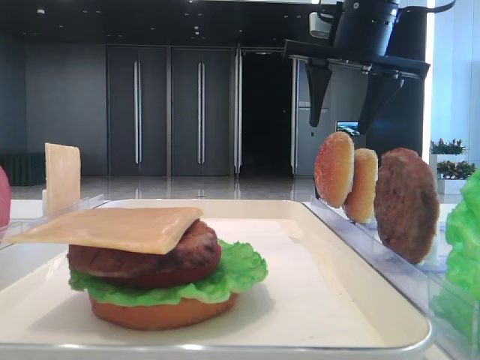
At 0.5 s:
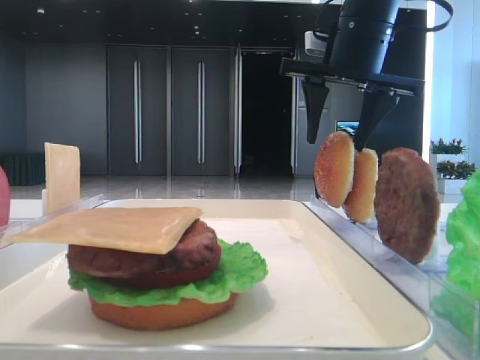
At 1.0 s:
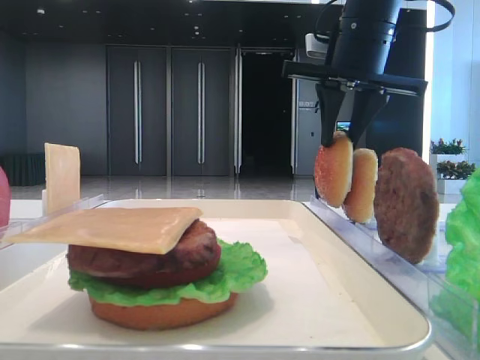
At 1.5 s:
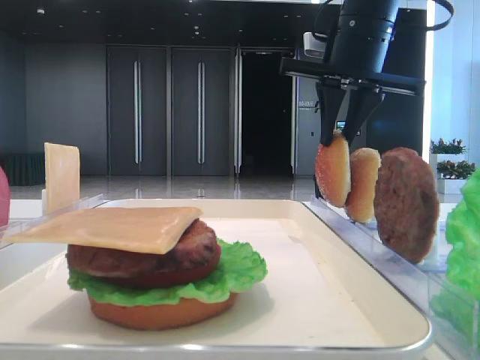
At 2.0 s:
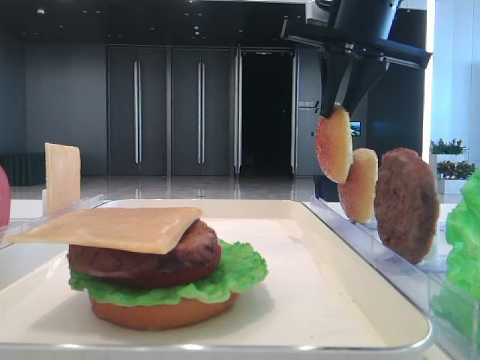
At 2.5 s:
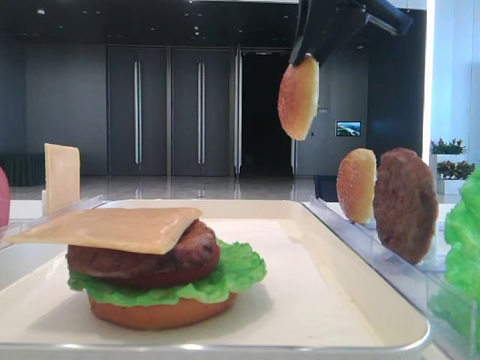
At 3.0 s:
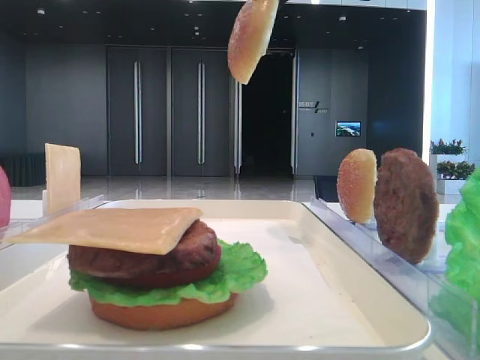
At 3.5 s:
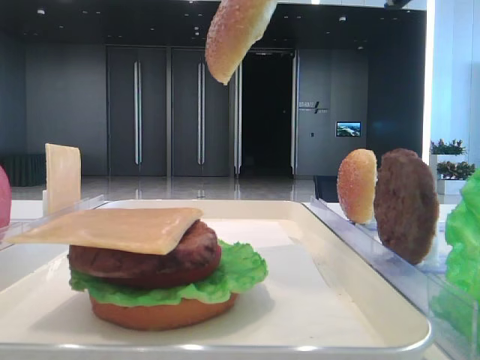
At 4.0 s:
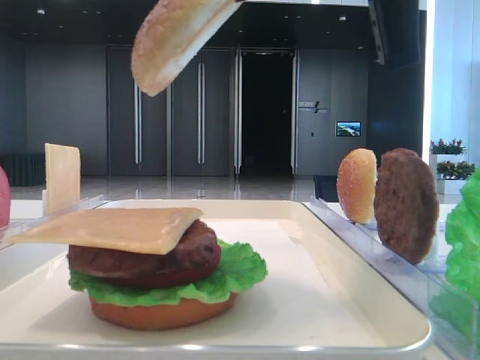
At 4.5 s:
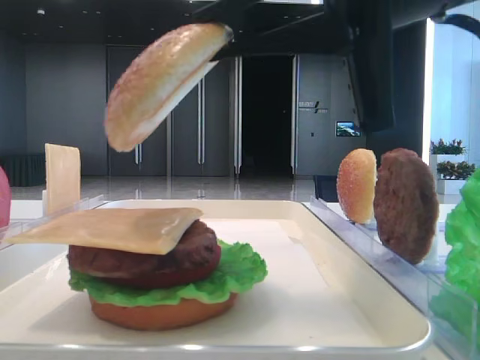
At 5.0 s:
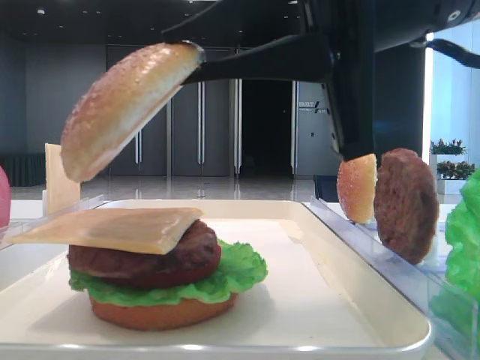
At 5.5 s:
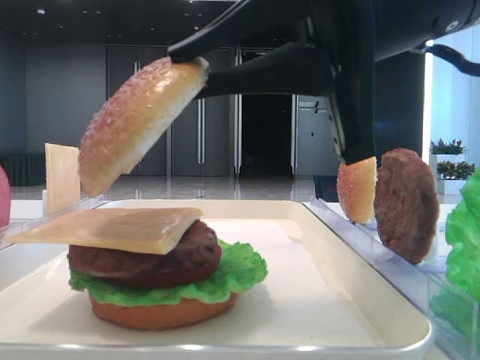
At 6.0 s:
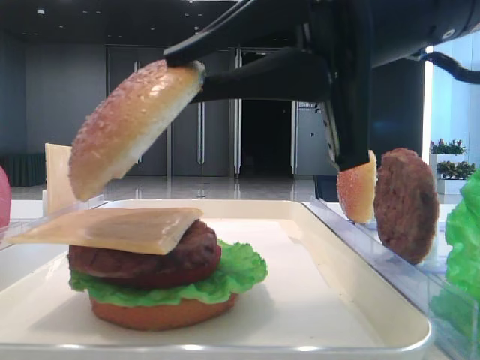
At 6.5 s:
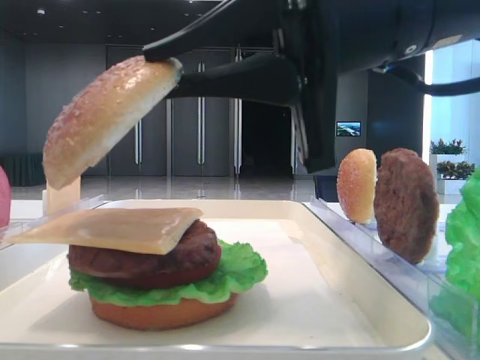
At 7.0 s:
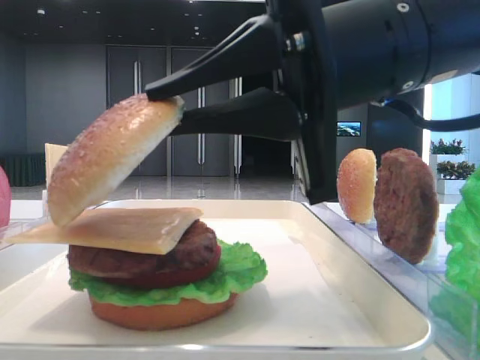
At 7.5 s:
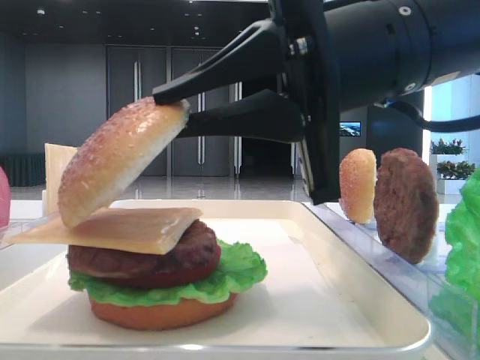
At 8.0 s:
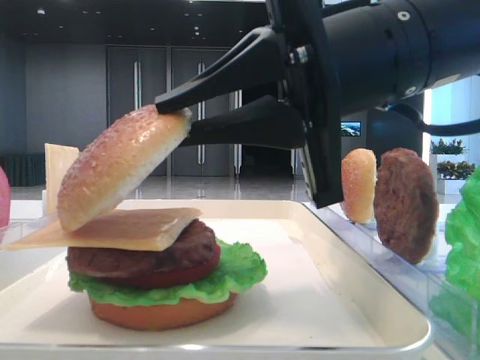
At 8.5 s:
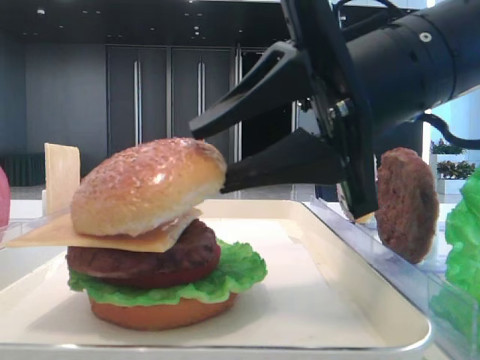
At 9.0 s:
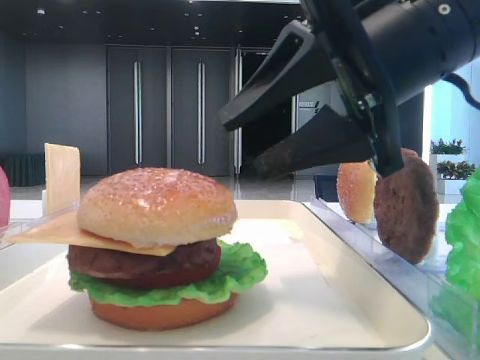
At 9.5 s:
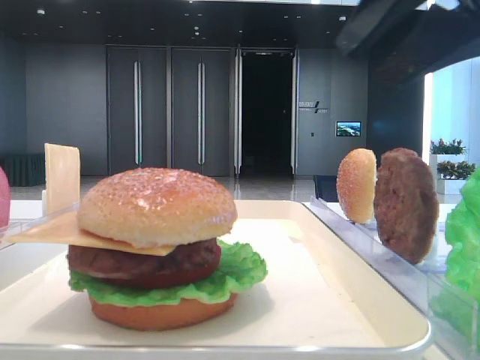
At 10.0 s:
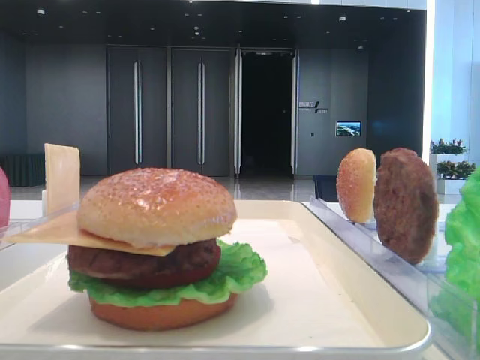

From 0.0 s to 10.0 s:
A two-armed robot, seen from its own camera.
Step, from 1.5 s to 8.5 s: Place the top bread slice on the cheese with the right hand.
From 0.0 s to 2.0 s: The right gripper closes up.
From 2.0 s to 4.0 s: The right gripper is displaced backward by approximately 20 cm.
From 4.0 s to 6.0 s: The right gripper goes approximately 5 cm downward.
From 6.0 s to 8.0 s: The grippers stay close to where they were, moving slightly.
From 8.0 s to 10.0 s: The right gripper heads to the right and upward, covering roughly 20 cm, and opens its fingers.

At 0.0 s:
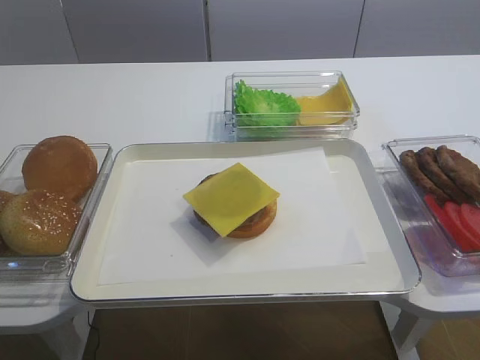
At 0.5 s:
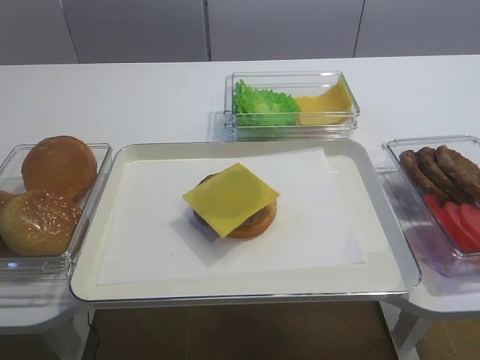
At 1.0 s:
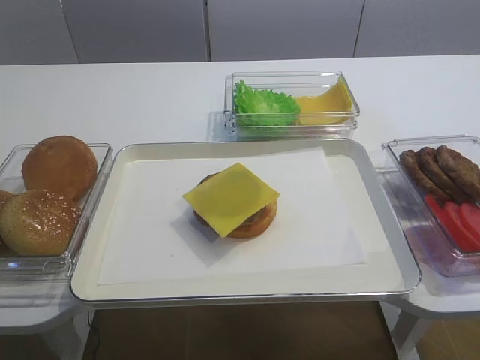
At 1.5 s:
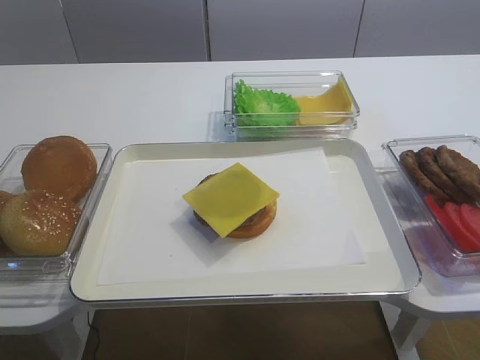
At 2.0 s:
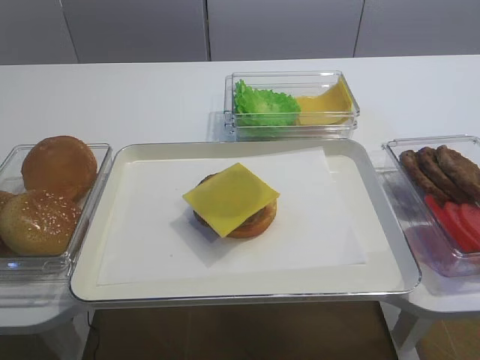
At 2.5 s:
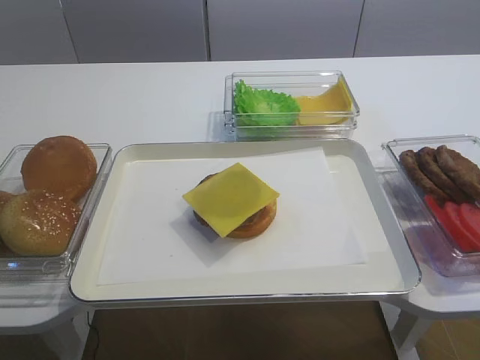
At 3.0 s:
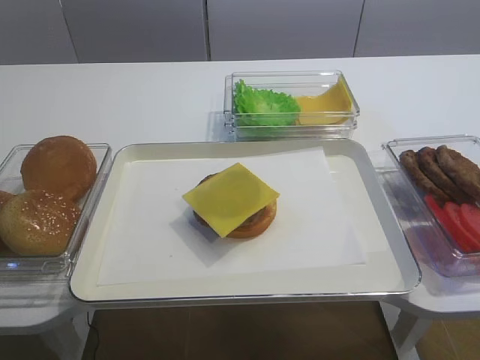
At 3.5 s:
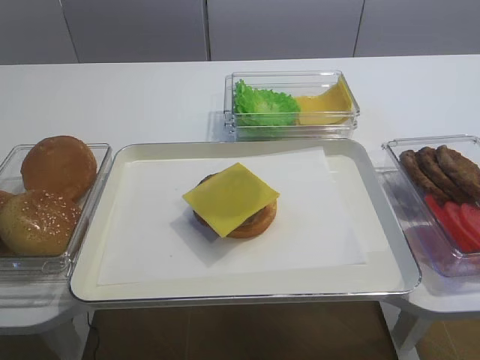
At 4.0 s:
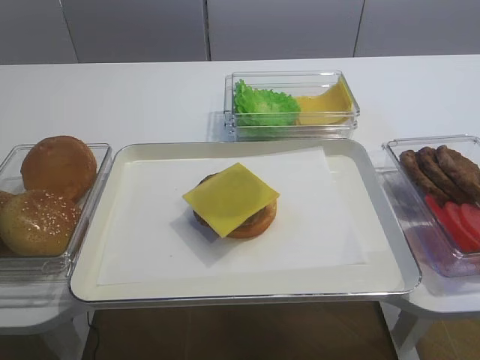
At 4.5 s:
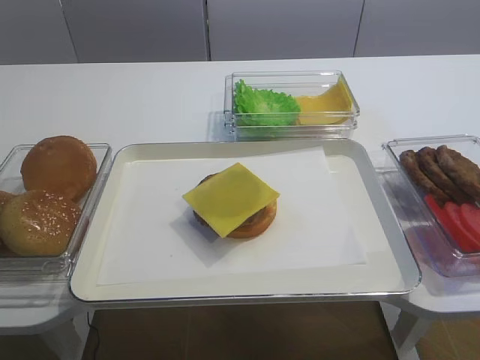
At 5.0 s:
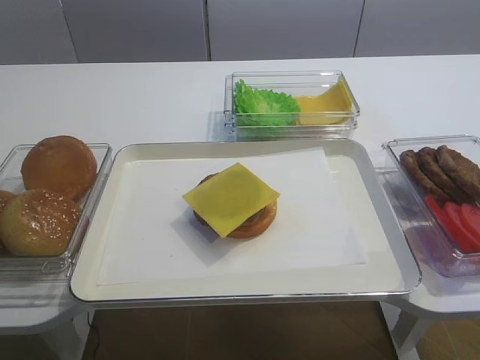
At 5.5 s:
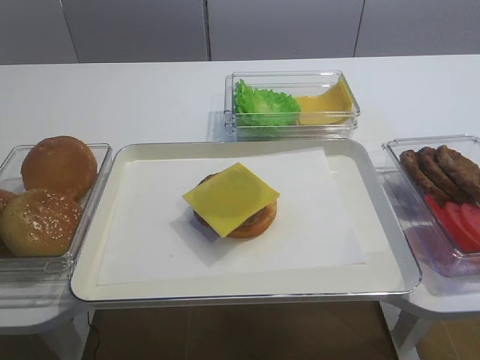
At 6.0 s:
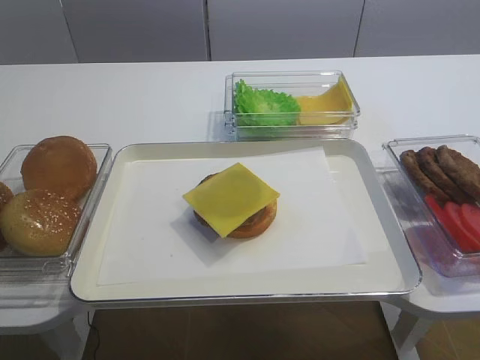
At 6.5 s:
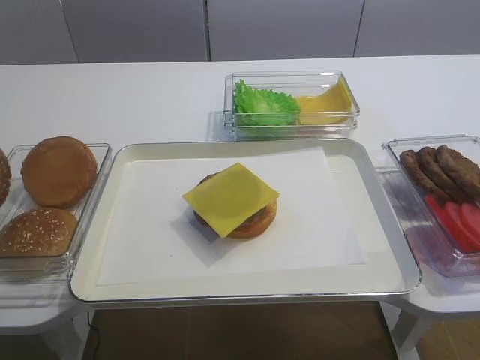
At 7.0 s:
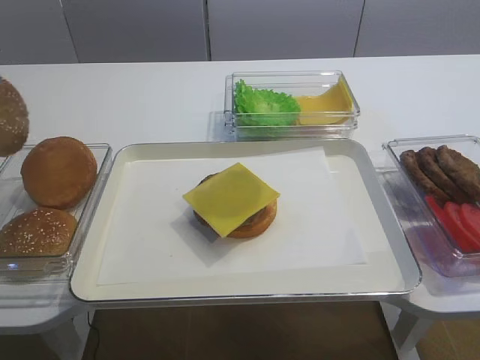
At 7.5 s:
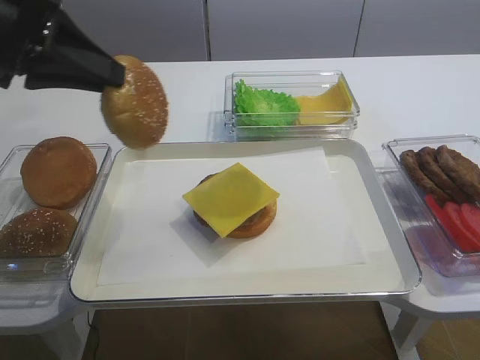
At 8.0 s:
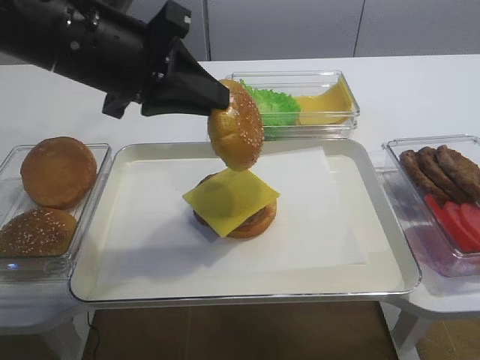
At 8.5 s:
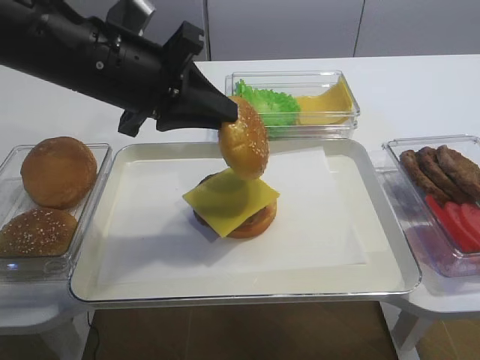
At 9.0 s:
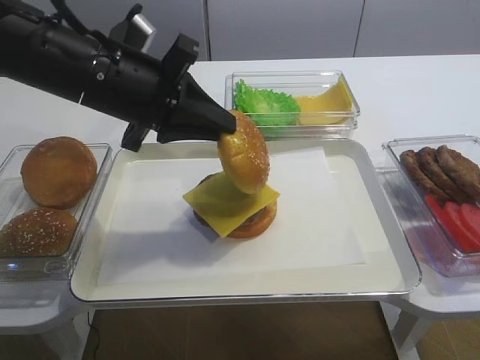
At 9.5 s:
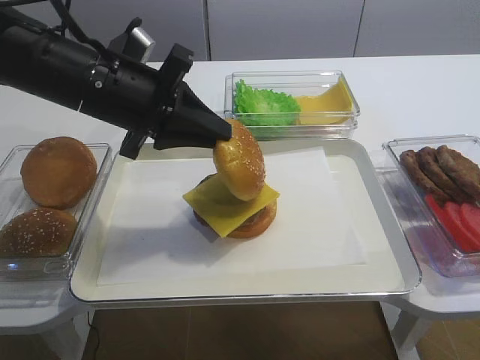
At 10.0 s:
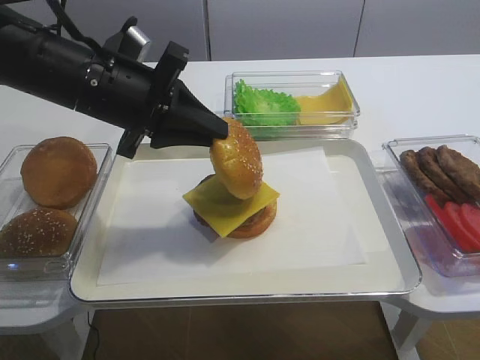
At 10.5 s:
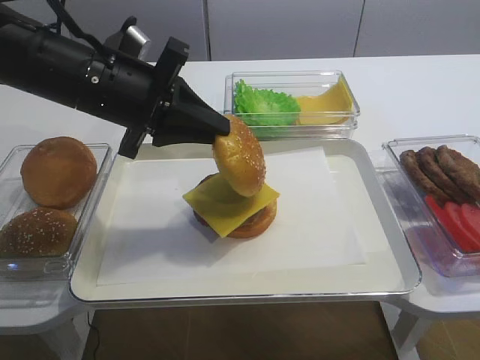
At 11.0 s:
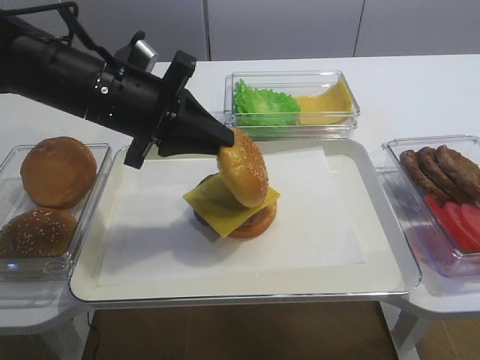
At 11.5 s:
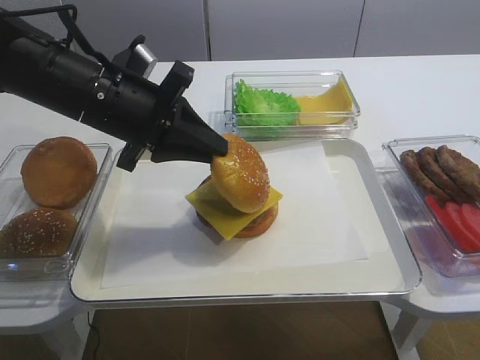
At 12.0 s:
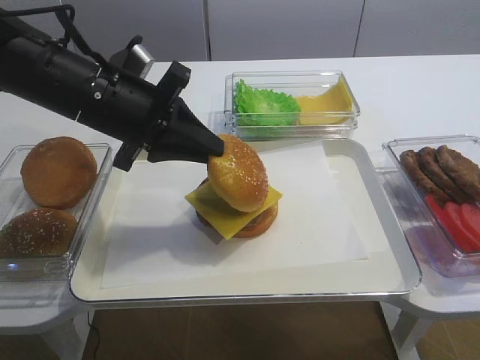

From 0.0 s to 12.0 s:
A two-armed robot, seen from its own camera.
Step, from 0.0 s to 6.5 s: Pick up the hamburger lid with the left gripper.
From 6.0 s to 8.0 s: The left gripper shifts some 20 cm to the right.
From 8.0 s to 10.0 s: The left gripper changes place by some 5 cm.
From 10.0 s to 12.0 s: The grippers make only small movements.

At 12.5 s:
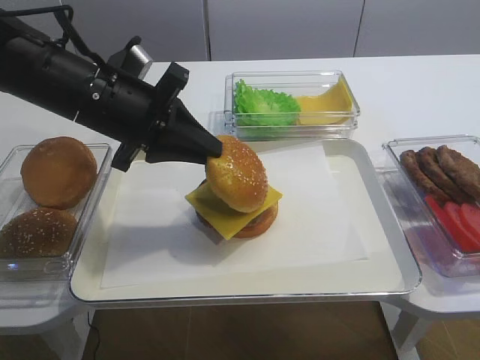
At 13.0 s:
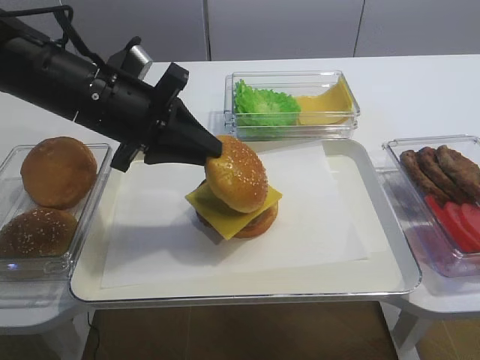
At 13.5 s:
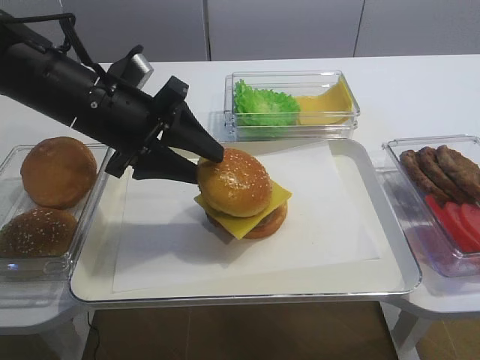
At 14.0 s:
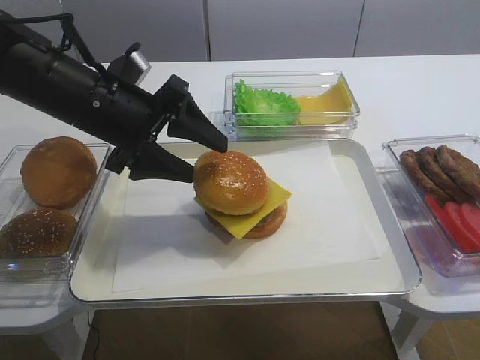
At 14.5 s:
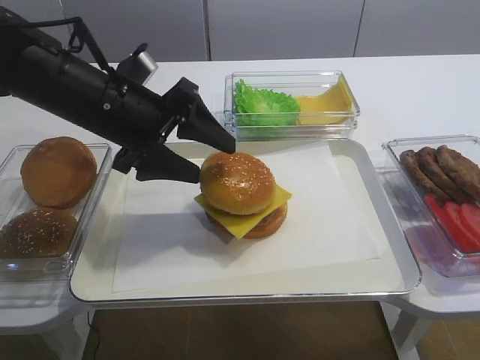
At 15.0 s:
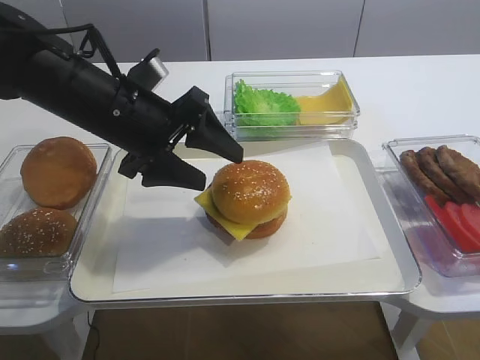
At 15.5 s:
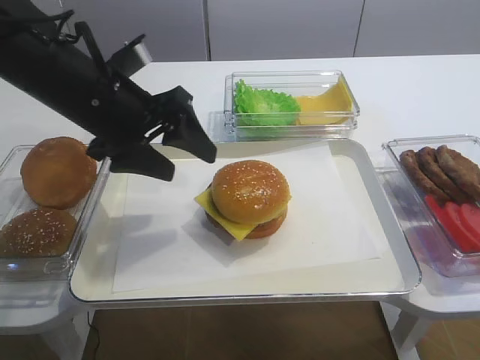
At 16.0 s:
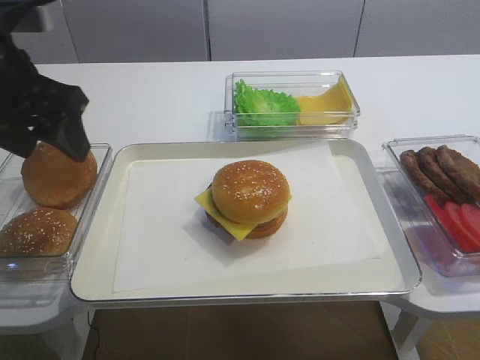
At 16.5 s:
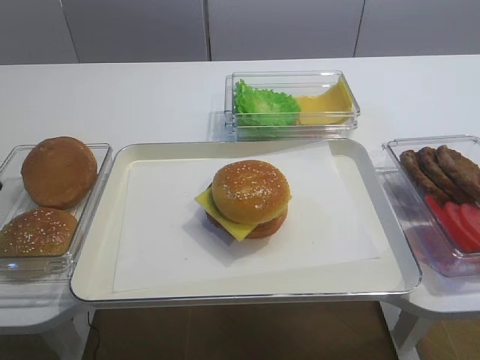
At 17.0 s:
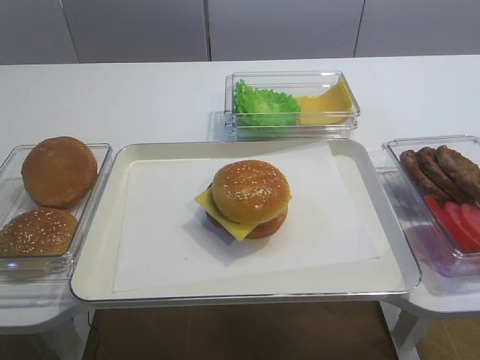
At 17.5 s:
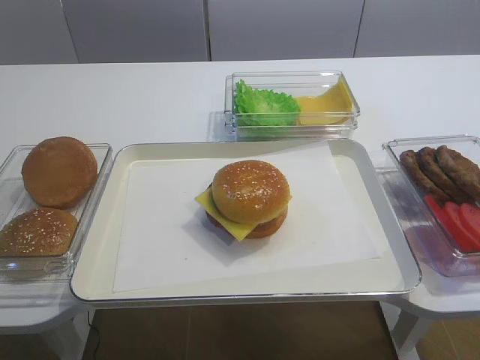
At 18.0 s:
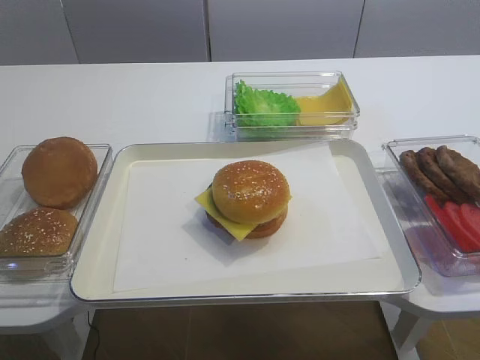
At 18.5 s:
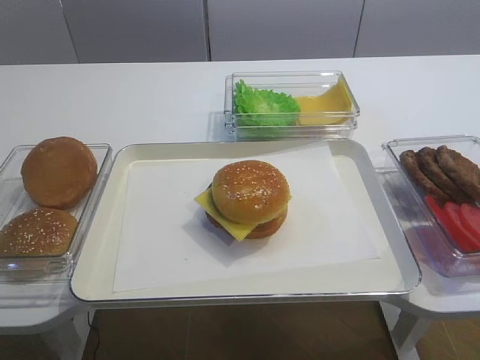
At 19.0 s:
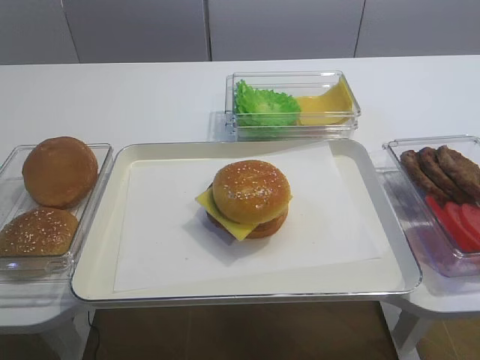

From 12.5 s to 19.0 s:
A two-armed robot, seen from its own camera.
Step, from 12.5 s to 15.0 s: Place the hamburger lid on the cheese slice with the left gripper.
From 12.5 s to 14.5 s: The left gripper opens up.
From 14.5 s to 17.0 s: The left gripper is displaced backward and to the left by about 30 cm.
